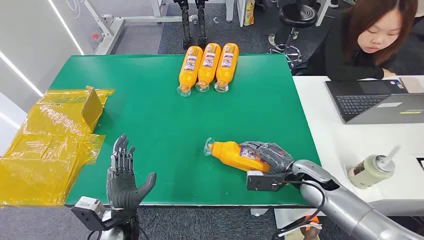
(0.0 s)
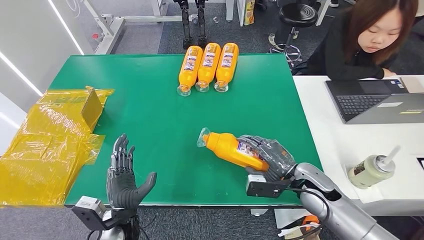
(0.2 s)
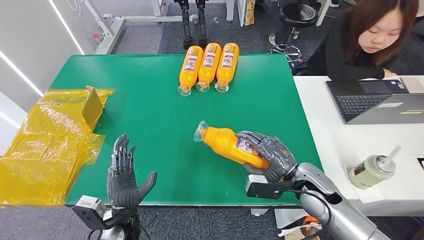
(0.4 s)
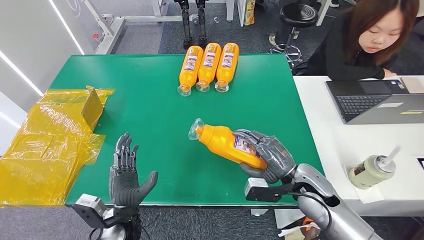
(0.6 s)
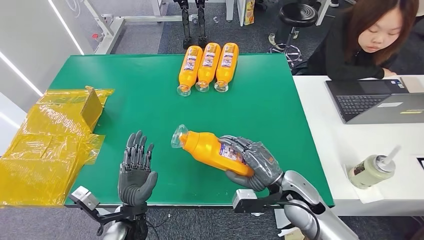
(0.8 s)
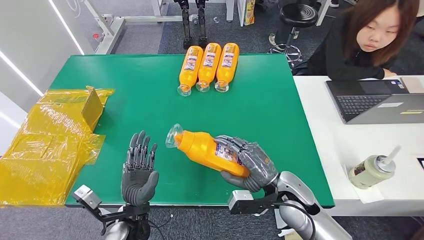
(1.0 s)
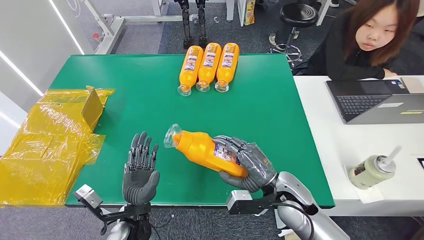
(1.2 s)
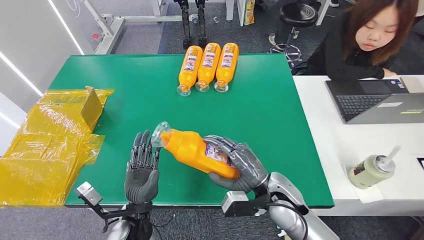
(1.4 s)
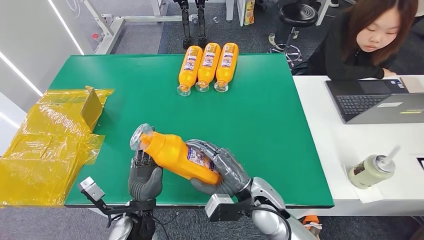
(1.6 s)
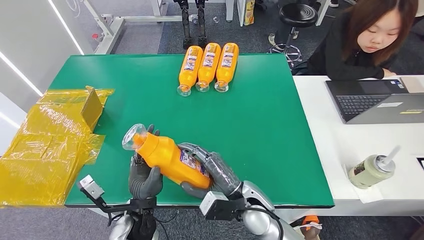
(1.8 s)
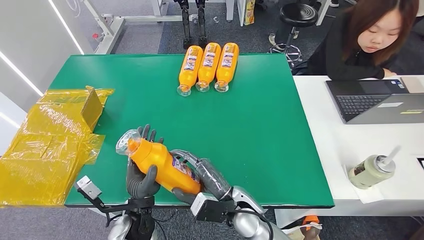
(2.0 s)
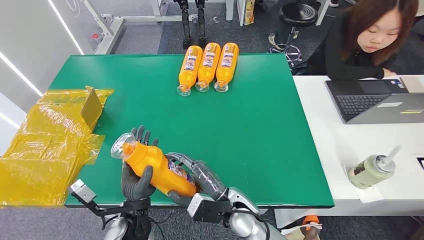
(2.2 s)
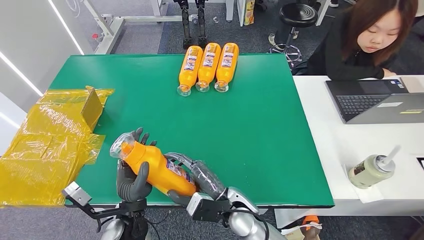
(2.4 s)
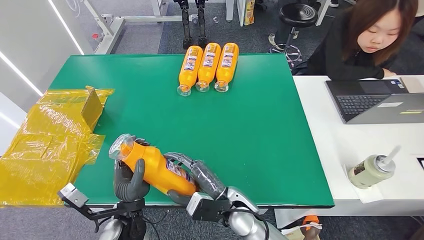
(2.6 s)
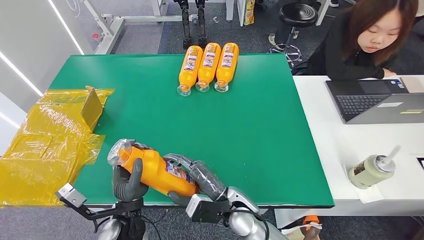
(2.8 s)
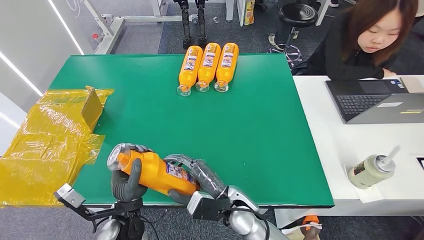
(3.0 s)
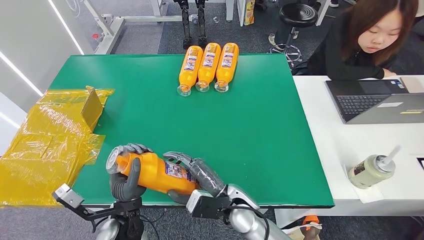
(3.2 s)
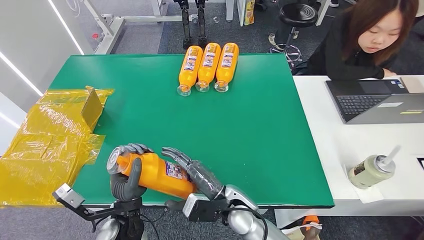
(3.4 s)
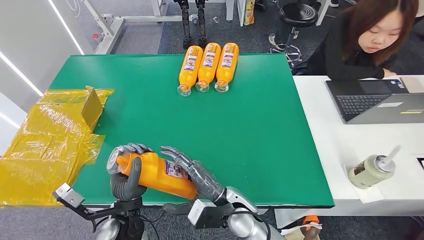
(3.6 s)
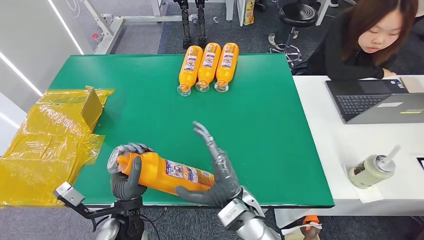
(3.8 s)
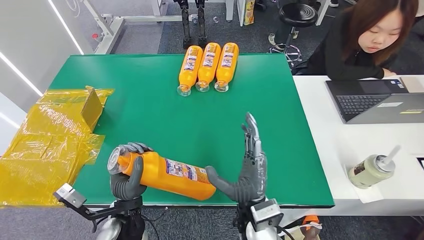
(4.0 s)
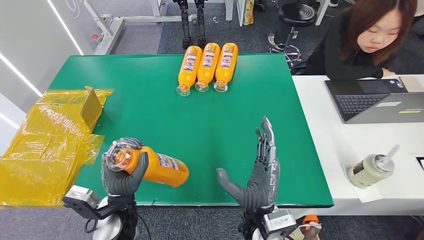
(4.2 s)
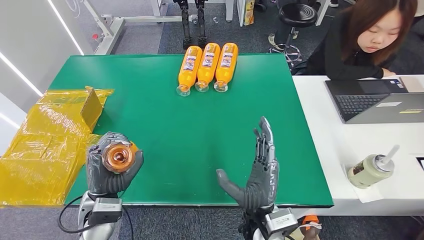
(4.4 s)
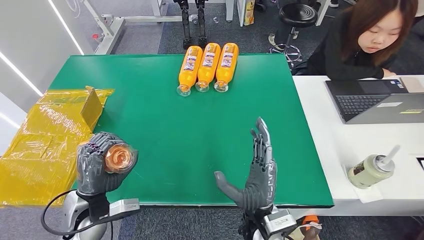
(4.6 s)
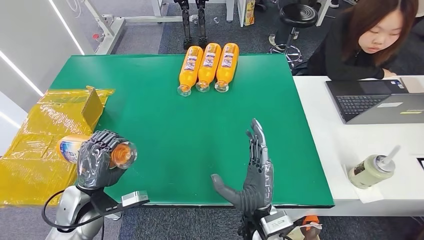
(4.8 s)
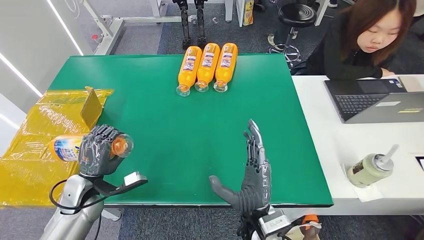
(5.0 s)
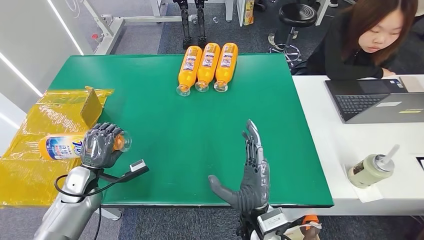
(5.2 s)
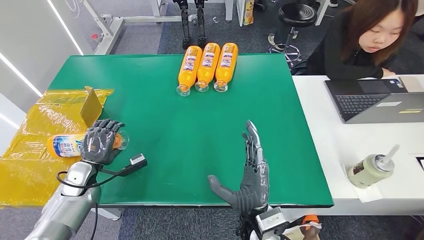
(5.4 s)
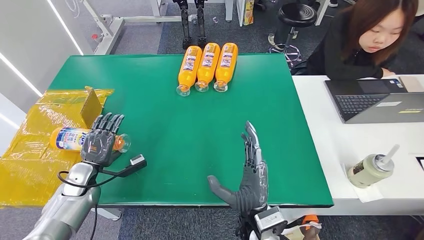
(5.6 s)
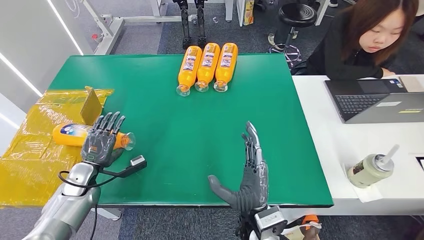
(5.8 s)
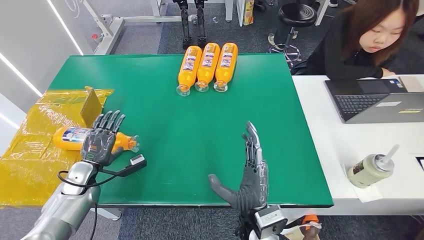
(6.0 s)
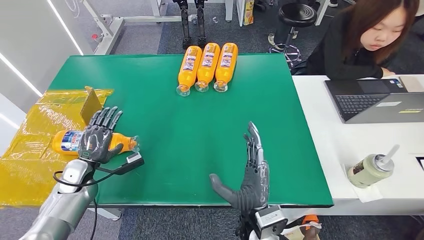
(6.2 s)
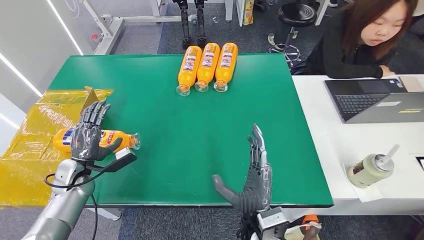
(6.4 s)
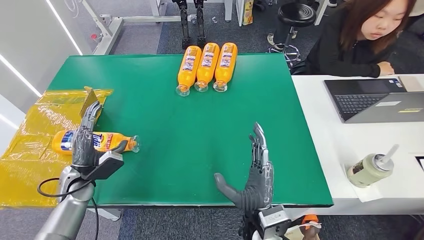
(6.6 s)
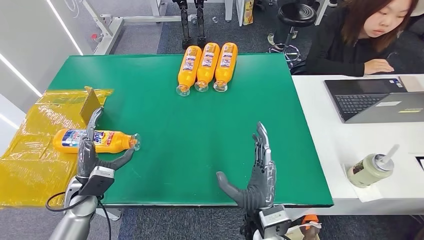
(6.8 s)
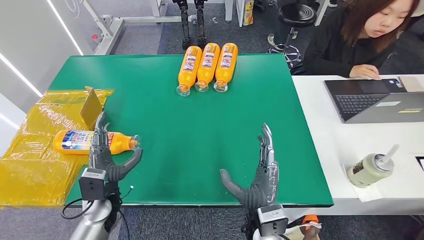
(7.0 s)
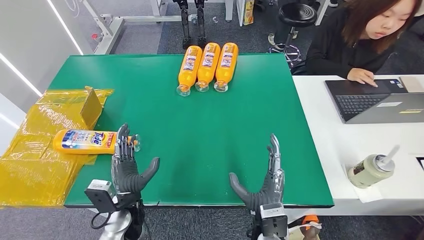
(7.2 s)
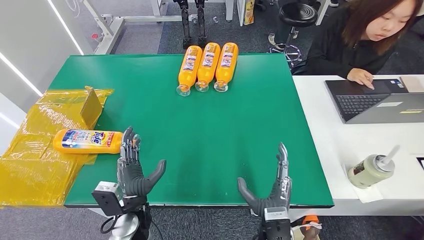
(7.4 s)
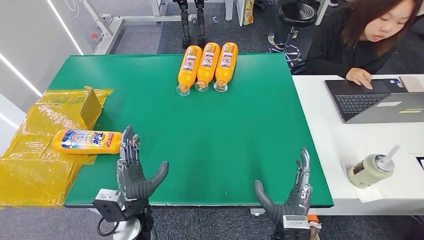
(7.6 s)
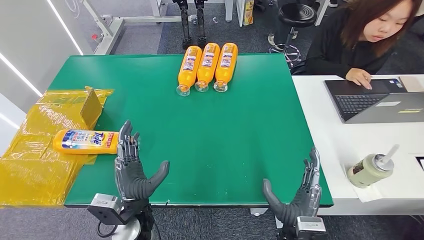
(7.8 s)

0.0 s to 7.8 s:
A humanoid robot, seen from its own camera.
Step, 0.0 to 1.6 s: Pick up the bottle from the table.
Step, 1.8 to 7.8 s: Turn the bottle to the front side.
1.6 to 3.2 s: The right hand goes some 5 cm to the left.
3.2 to 4.6 s: The right hand goes some 5 cm backward; the left hand goes roughly 10 cm to the left.
4.6 to 6.2 s: The left hand is displaced to the left and forward by roughly 15 cm.
6.2 to 7.8 s: The left hand moves to the right and backward, approximately 25 cm; the right hand shifts about 10 cm to the right.

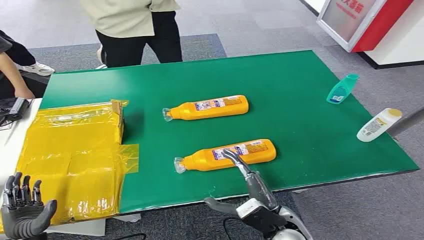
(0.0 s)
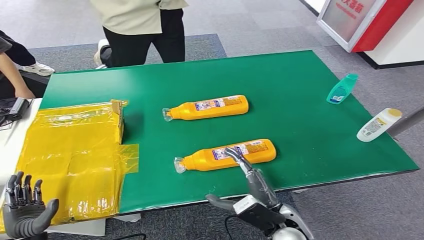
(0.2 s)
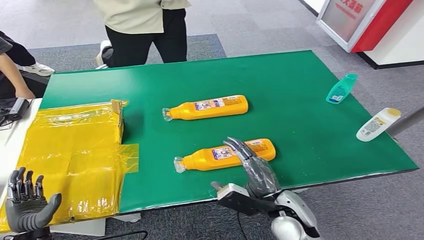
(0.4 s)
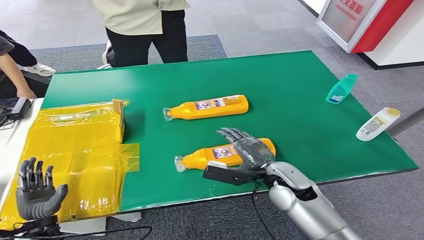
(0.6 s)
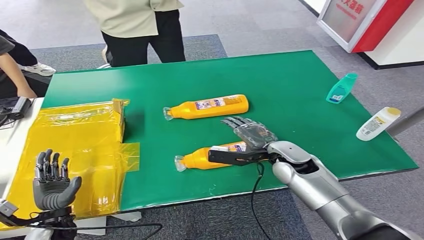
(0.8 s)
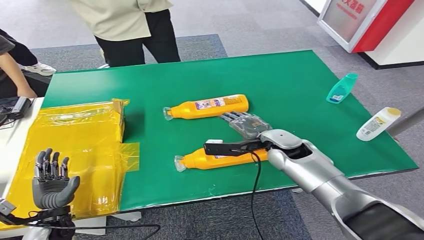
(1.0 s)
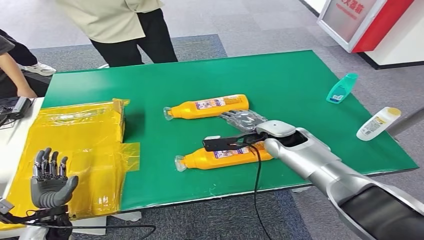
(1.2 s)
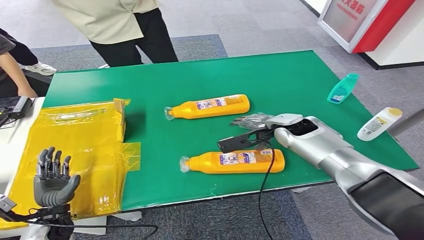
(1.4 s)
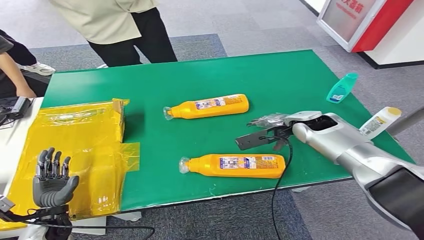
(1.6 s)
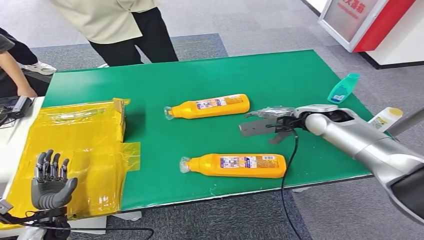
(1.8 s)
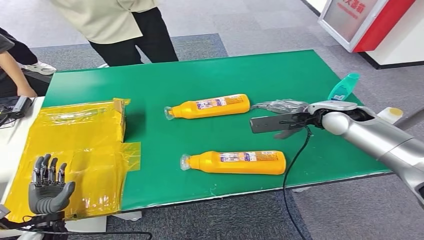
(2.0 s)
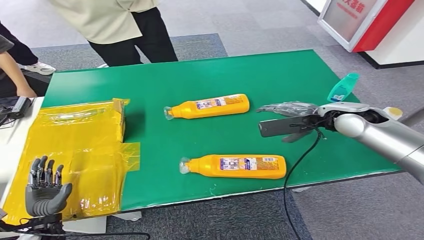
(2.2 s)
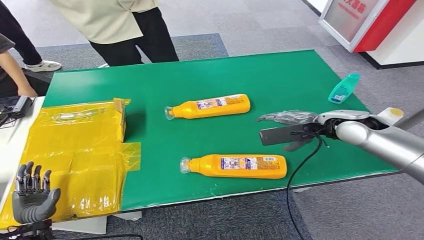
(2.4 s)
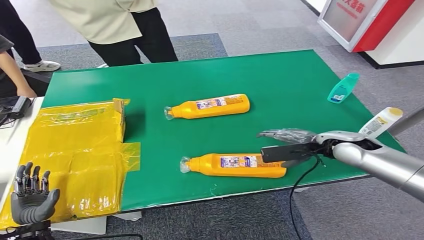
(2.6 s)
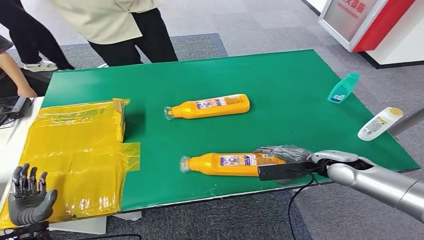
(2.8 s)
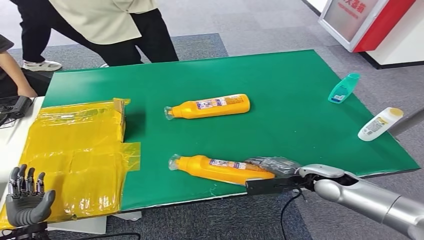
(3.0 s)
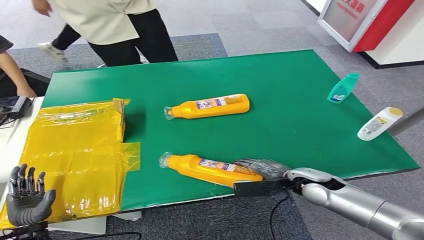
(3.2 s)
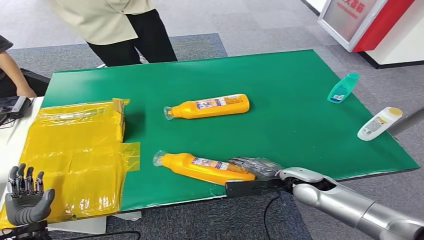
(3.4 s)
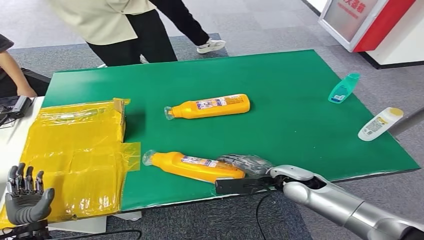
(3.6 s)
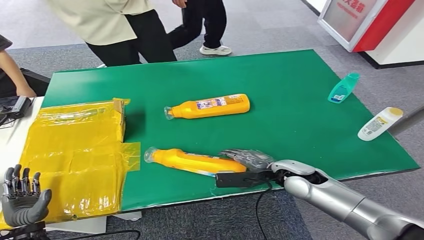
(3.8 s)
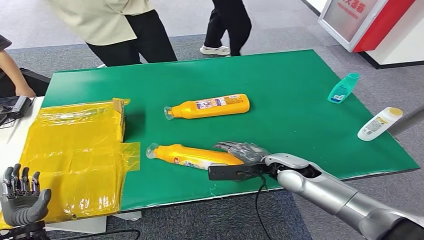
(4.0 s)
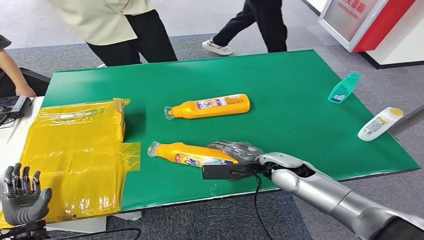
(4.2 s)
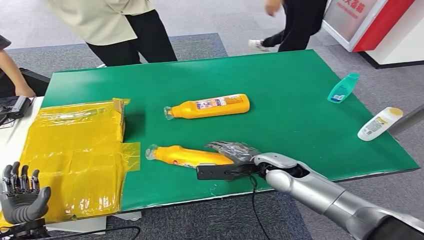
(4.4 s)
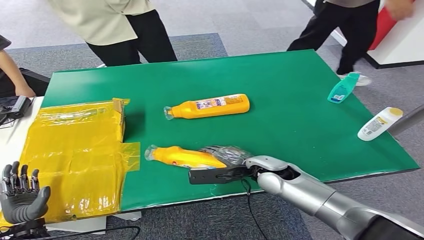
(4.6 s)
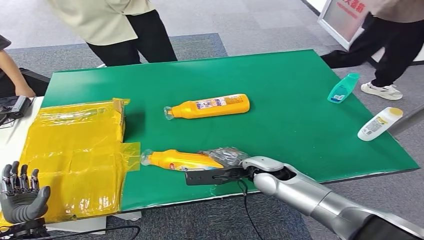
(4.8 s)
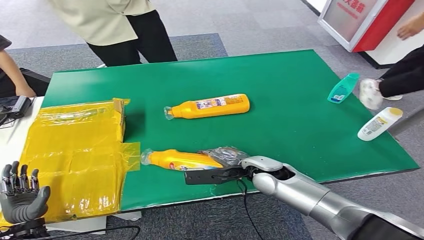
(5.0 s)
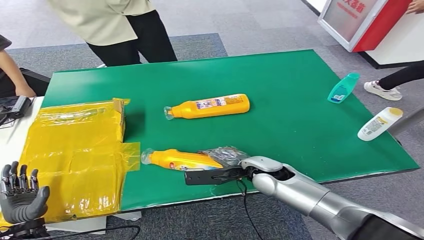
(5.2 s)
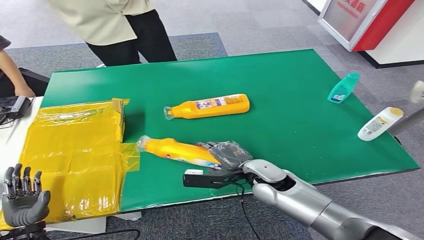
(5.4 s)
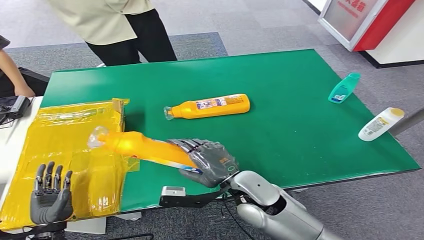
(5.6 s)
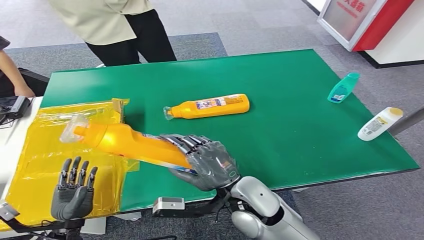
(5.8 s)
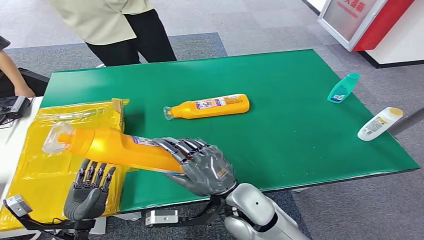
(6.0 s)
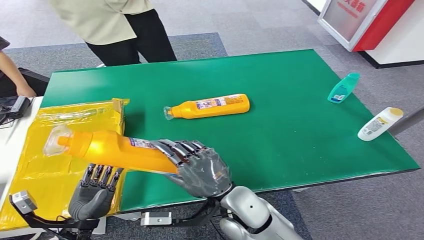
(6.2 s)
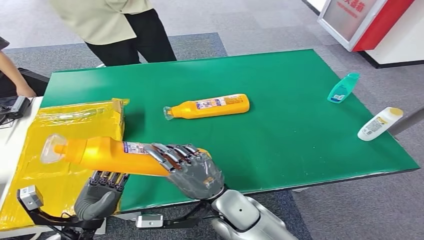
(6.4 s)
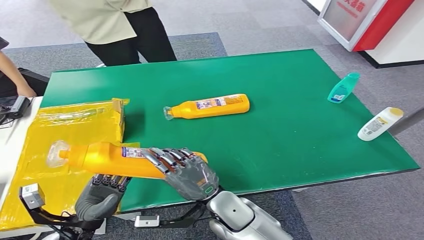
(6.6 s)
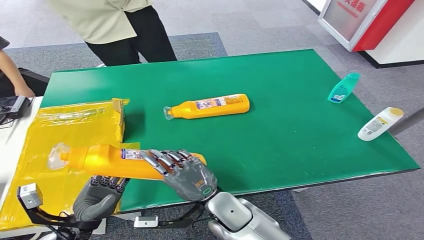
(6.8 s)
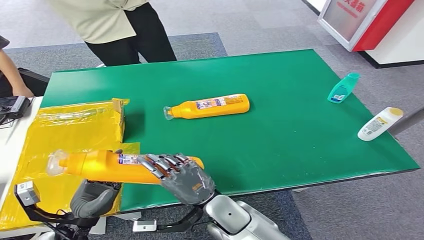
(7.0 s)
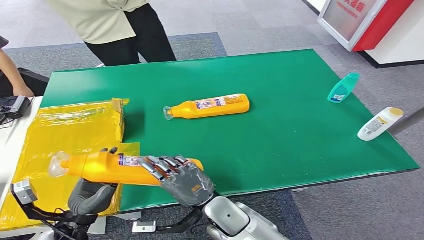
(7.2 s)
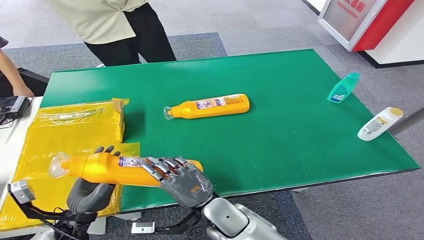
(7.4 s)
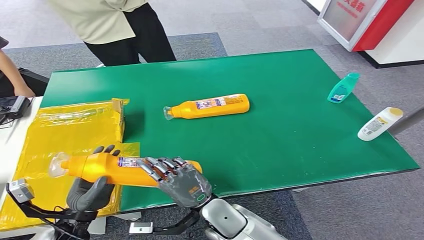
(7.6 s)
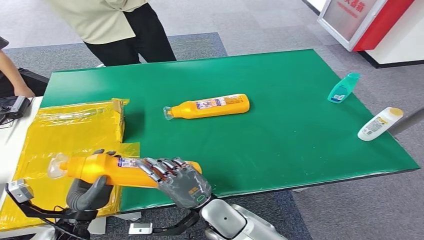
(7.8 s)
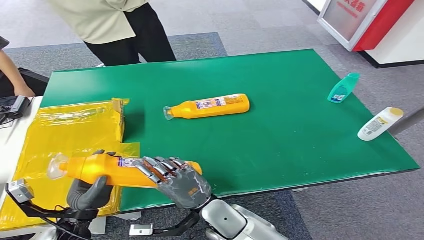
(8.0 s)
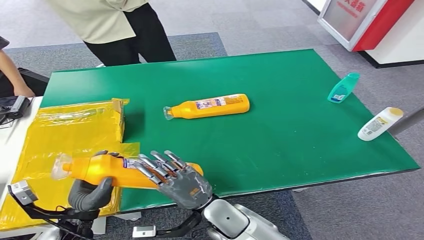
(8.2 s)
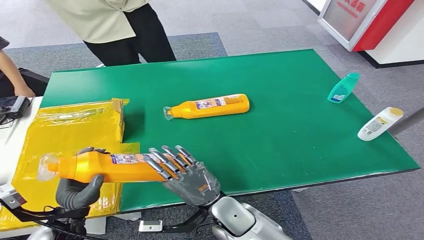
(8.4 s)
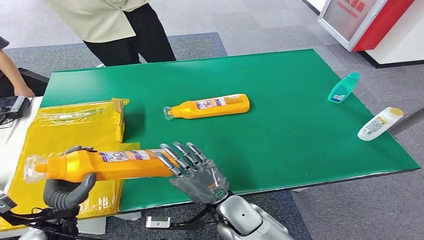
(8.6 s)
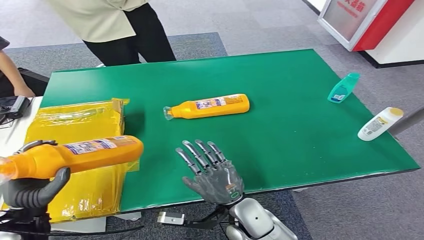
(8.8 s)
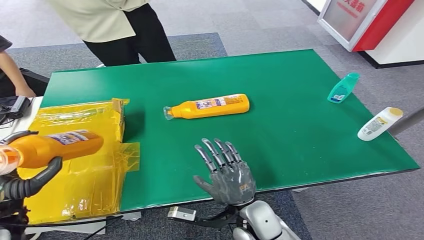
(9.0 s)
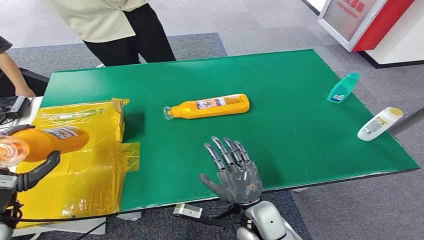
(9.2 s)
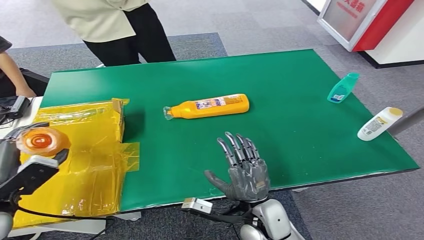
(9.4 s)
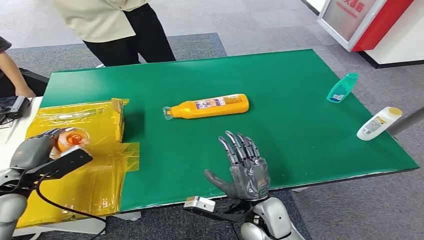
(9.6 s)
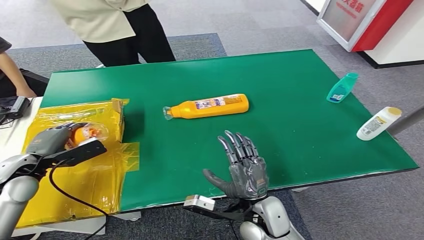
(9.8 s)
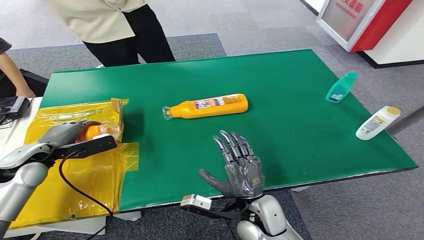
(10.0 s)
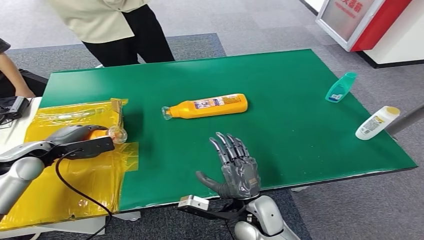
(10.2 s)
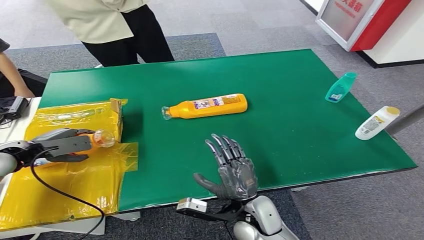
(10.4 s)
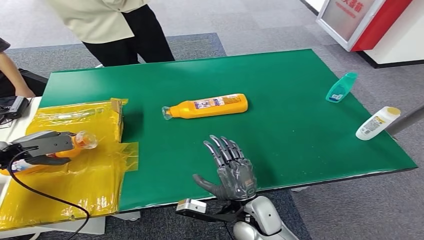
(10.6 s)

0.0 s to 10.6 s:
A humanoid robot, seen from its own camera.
Step, 0.0 to 6.0 s: Pick up the bottle from the table.
6.0 to 7.6 s: The right hand moves downward, roughly 5 cm.
7.6 to 9.0 s: The right hand shifts about 5 cm to the right. Meanwhile the left hand shifts roughly 10 cm to the left and upward.
9.0 to 10.6 s: The left hand moves forward and to the left, some 20 cm.
